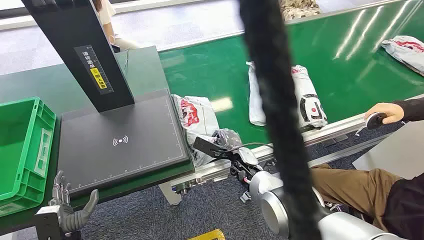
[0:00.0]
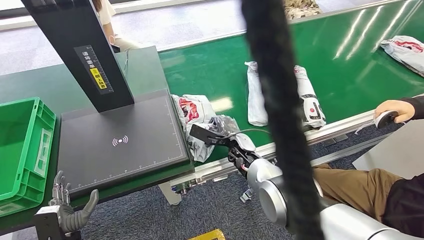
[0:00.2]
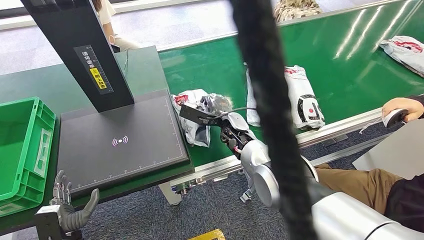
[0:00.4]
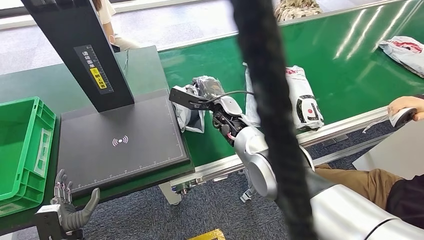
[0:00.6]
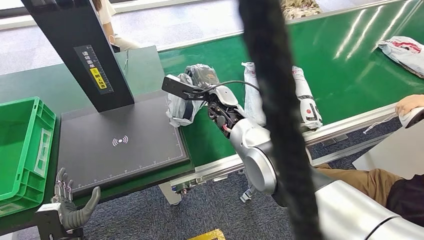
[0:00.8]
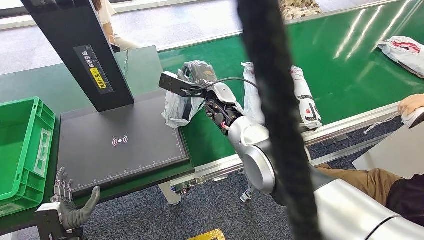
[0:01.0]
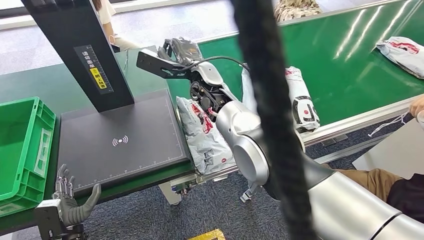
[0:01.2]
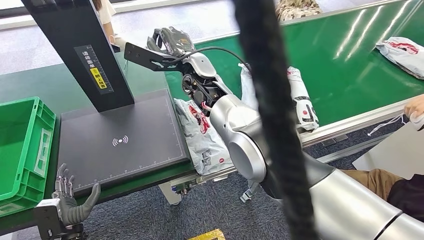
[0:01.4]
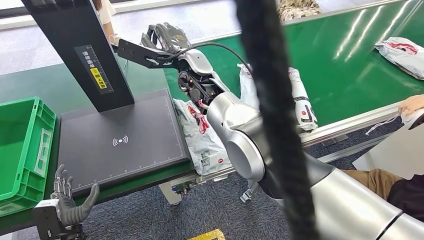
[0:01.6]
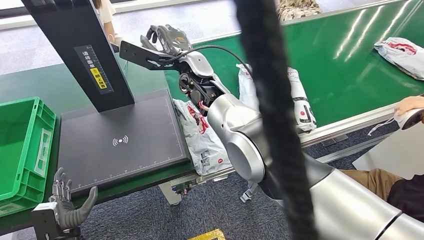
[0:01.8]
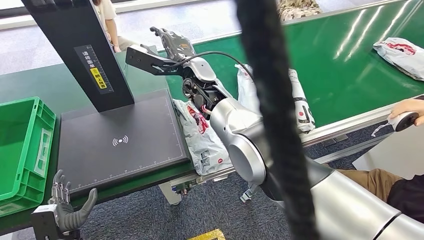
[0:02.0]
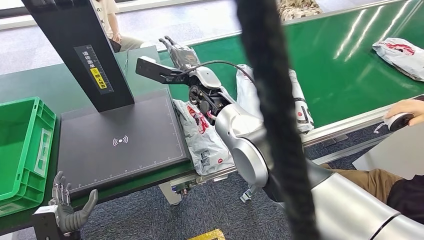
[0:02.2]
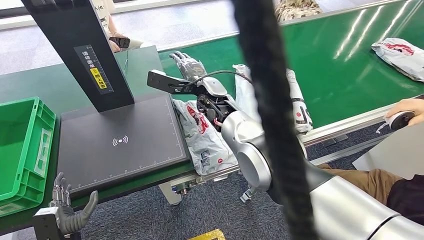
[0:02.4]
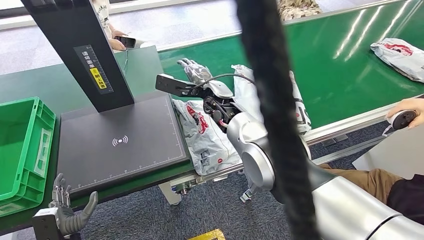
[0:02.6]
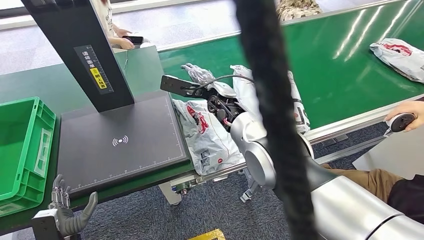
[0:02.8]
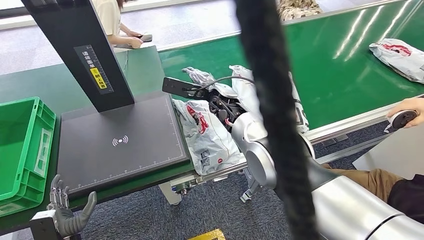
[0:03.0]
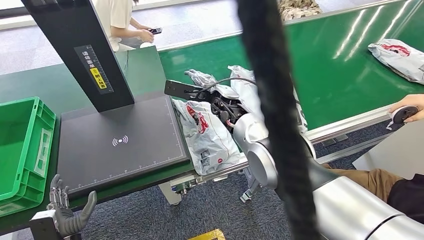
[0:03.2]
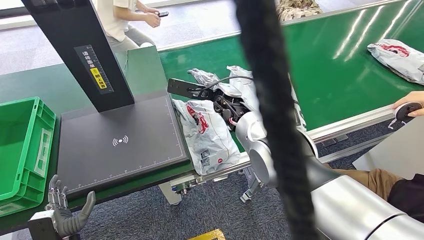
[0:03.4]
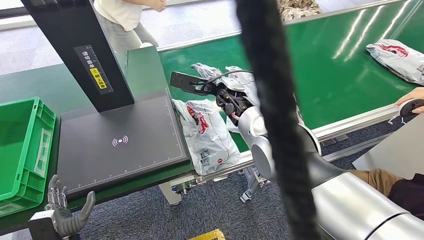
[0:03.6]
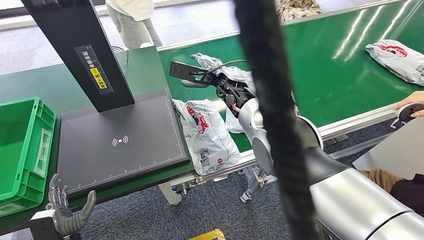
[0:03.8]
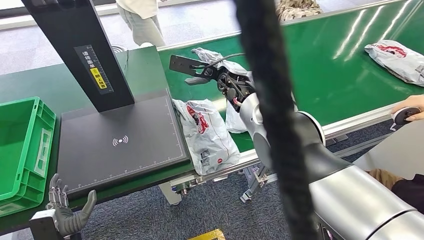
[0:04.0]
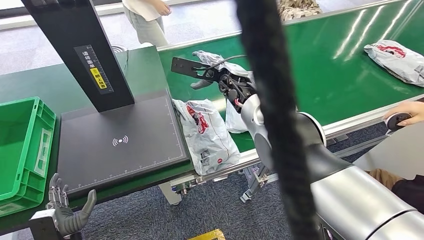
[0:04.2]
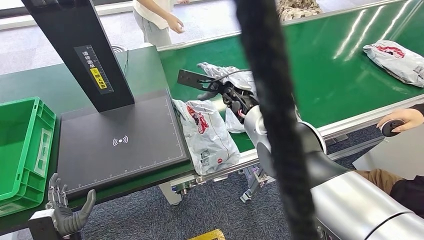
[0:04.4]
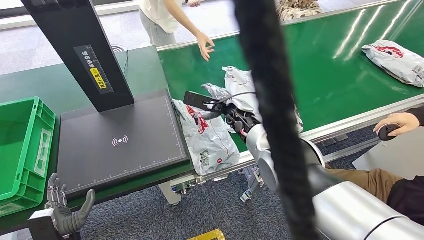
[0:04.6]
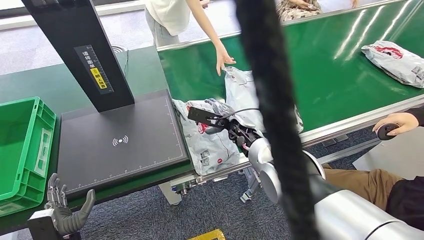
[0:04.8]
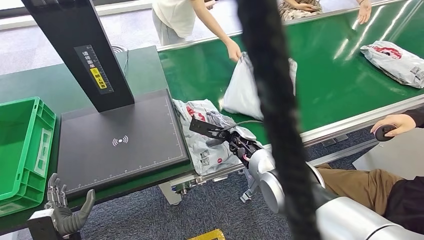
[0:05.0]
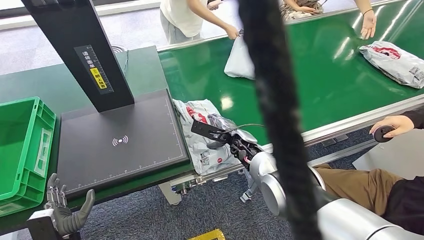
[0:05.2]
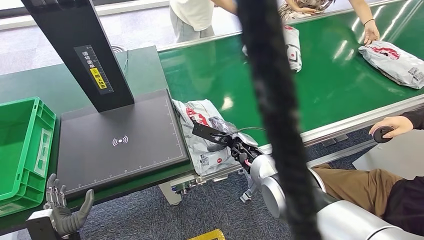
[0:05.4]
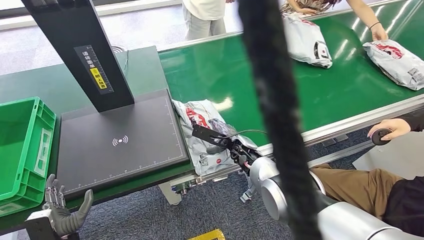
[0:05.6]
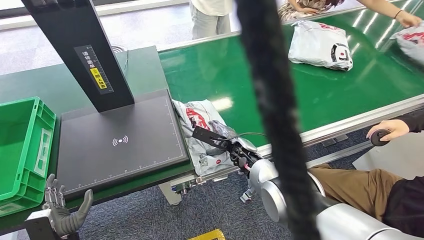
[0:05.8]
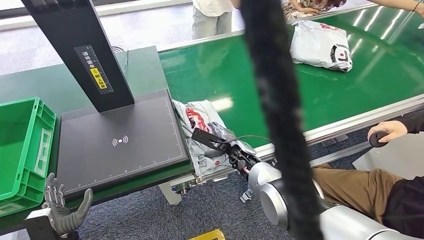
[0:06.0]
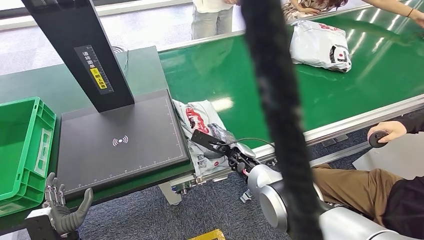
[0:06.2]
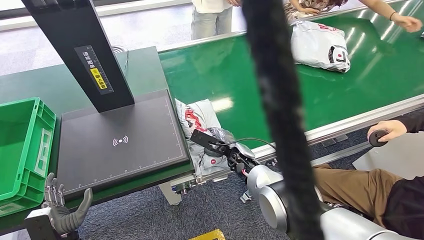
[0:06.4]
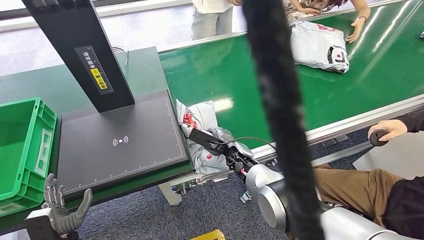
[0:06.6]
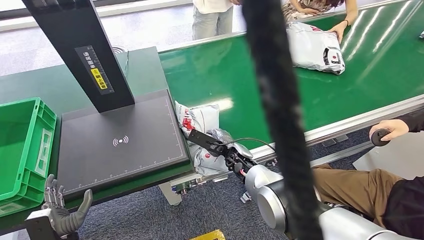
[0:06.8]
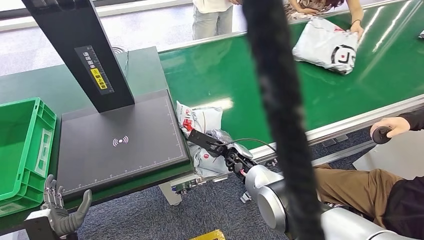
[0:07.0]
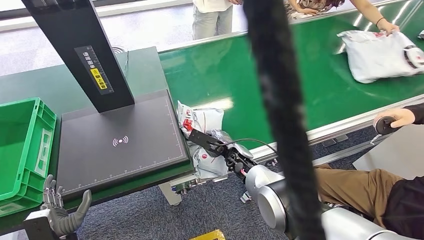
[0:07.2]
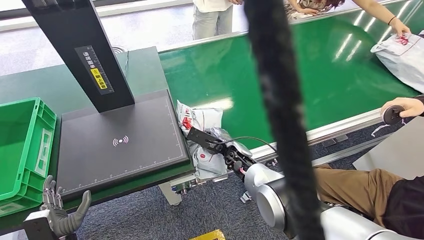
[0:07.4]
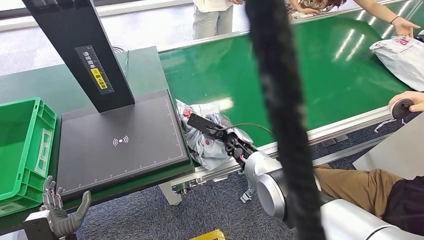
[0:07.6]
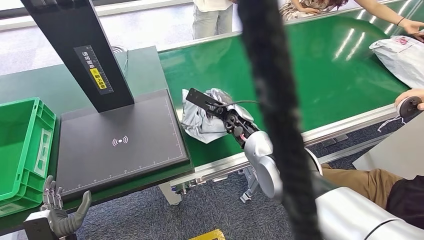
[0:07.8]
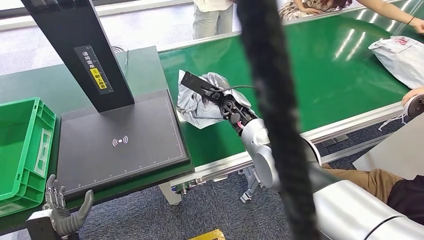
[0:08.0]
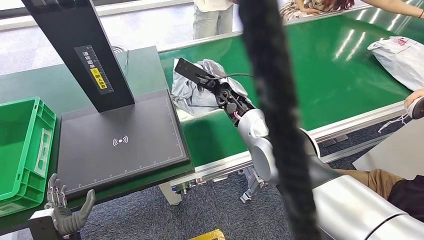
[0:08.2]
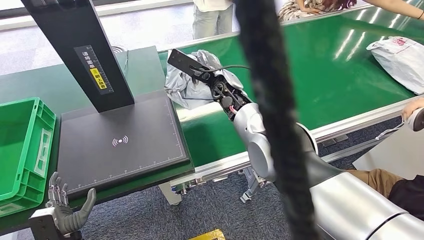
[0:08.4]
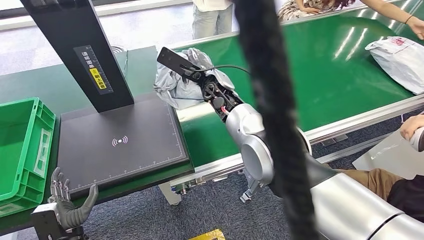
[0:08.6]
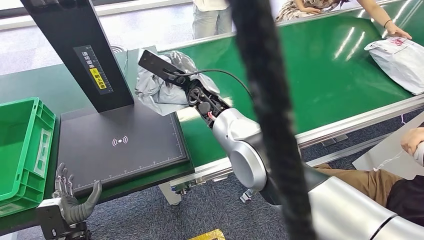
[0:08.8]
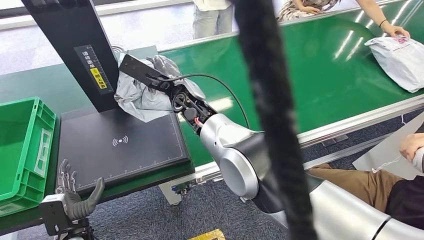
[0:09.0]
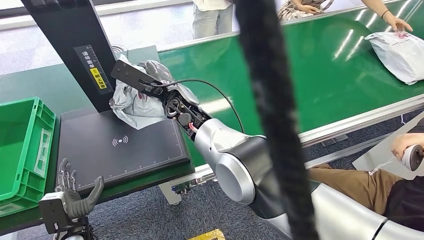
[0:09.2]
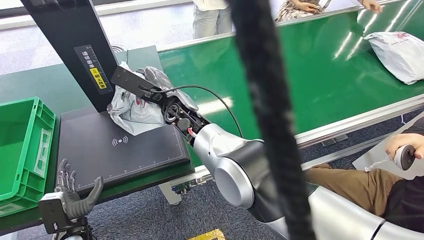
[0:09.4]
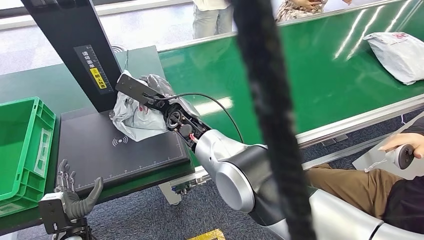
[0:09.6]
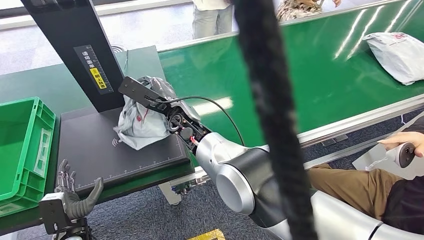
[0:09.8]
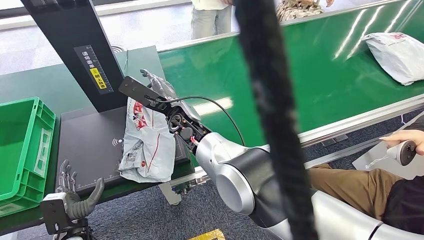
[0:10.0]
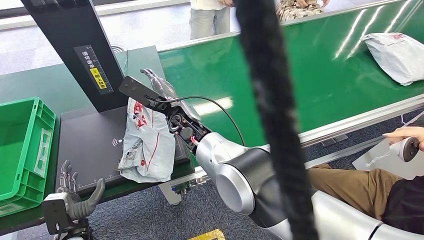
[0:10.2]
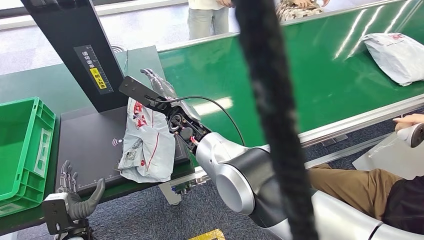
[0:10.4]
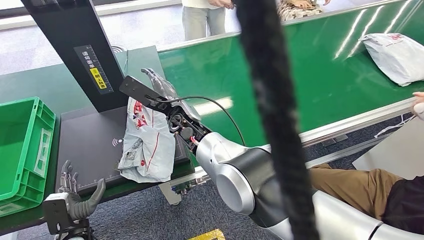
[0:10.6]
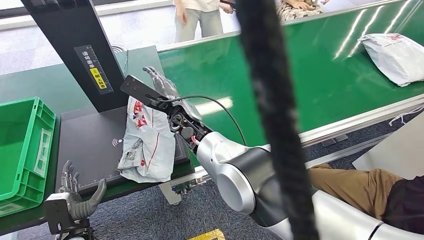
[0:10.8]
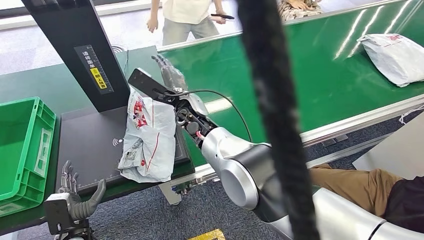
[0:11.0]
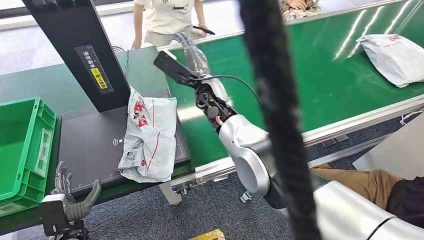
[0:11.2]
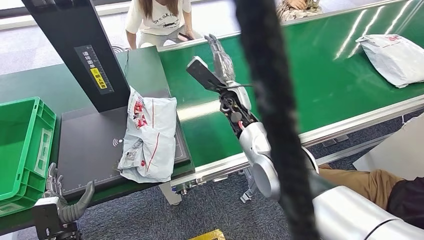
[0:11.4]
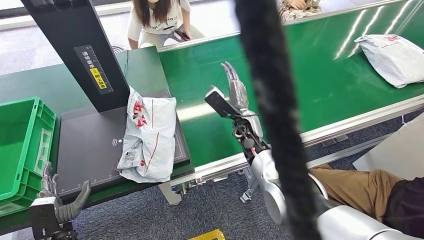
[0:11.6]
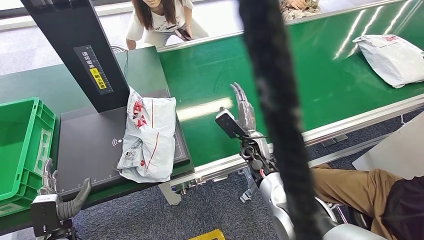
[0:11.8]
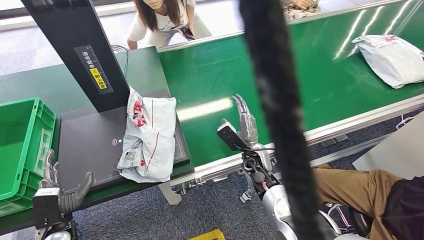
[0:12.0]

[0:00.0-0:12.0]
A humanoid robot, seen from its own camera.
Step, 0:00.0 to 0:08.8: Pick up the package from the conveyor belt.
0:01.6 to 0:03.0: The right hand heads downward and to the right, covering roughly 15 cm.
0:06.0 to 0:07.6: The hands stay close to where they were, moving slightly.

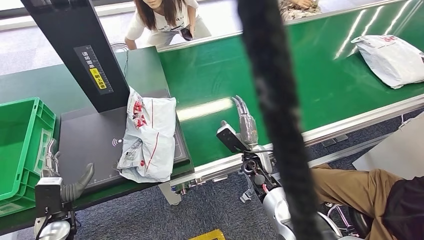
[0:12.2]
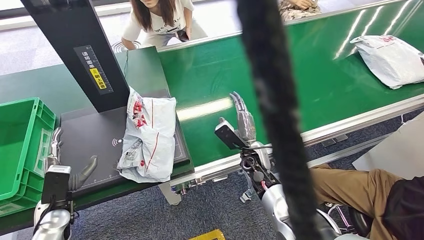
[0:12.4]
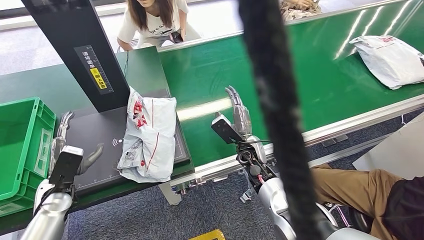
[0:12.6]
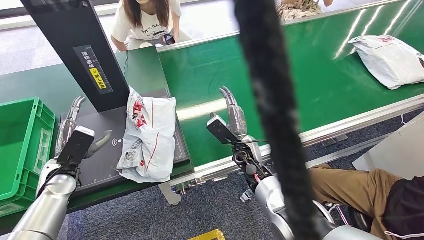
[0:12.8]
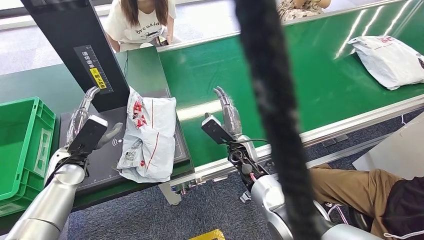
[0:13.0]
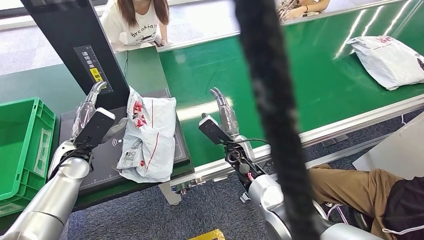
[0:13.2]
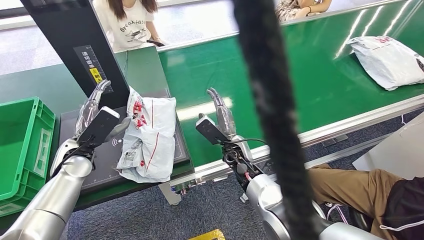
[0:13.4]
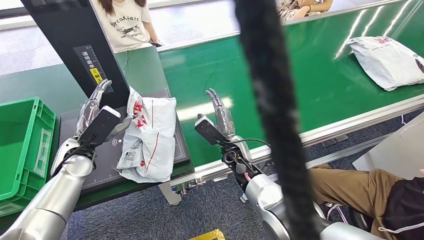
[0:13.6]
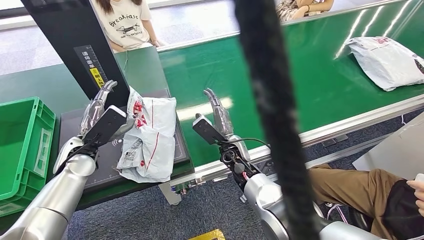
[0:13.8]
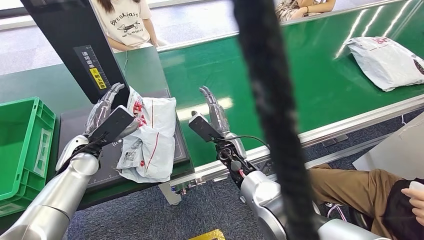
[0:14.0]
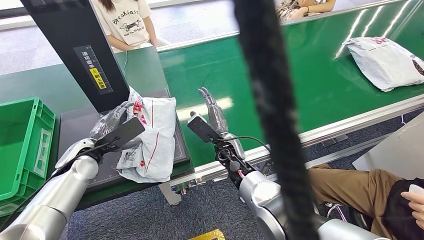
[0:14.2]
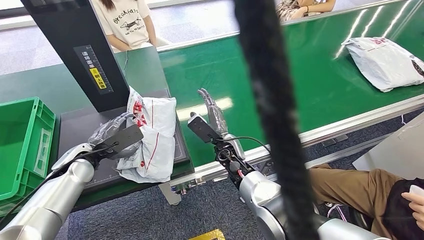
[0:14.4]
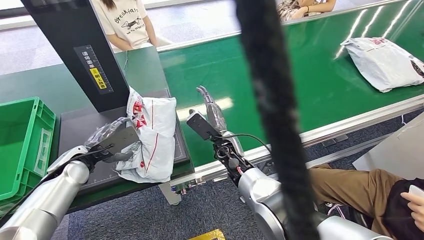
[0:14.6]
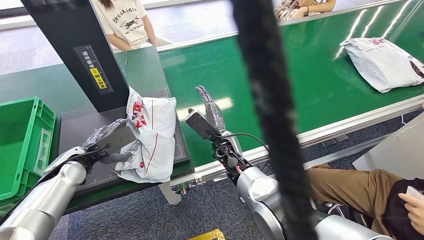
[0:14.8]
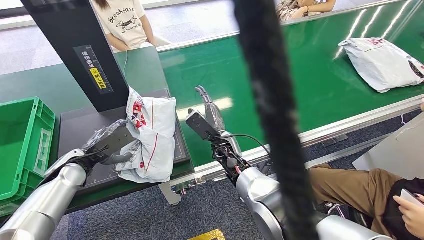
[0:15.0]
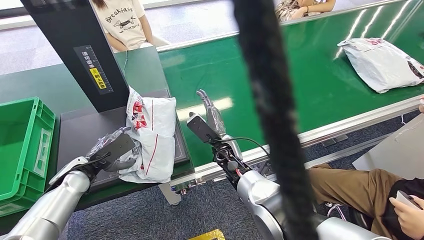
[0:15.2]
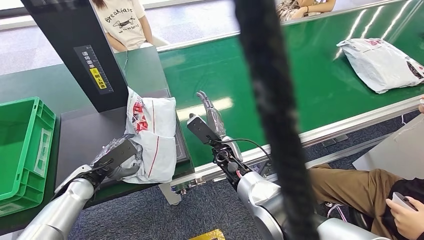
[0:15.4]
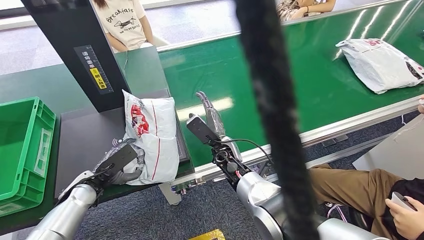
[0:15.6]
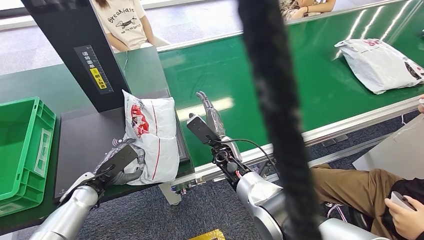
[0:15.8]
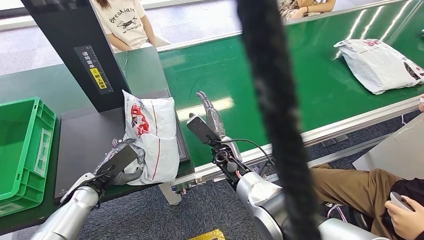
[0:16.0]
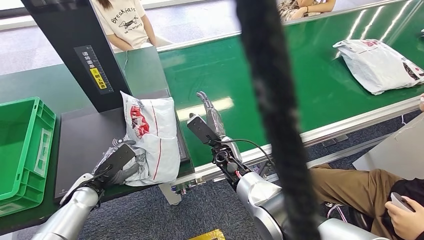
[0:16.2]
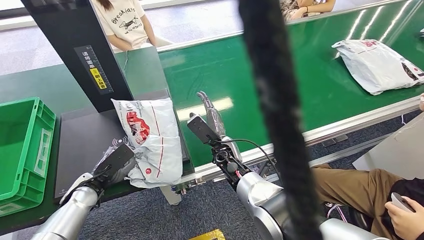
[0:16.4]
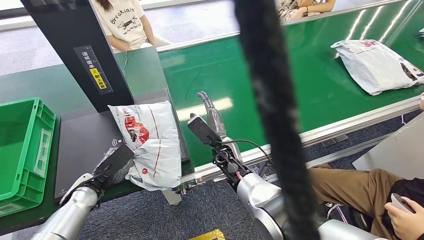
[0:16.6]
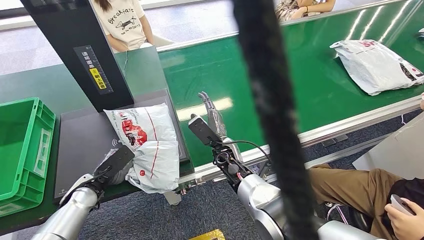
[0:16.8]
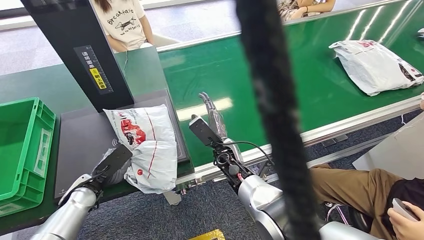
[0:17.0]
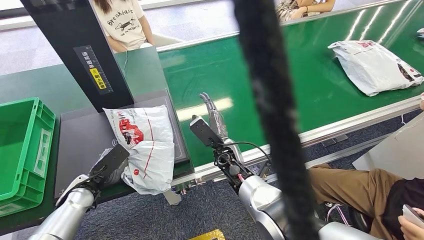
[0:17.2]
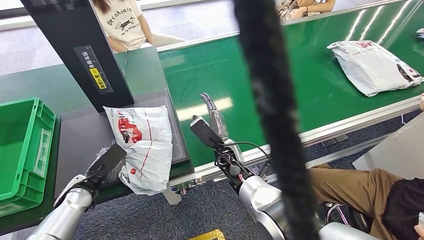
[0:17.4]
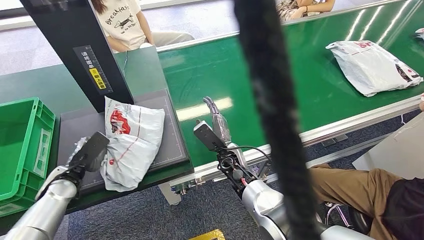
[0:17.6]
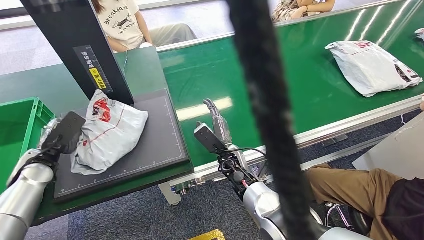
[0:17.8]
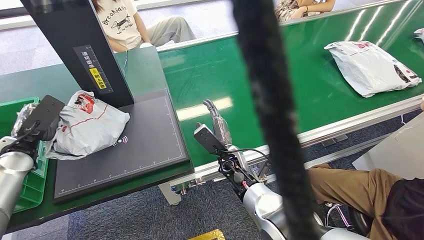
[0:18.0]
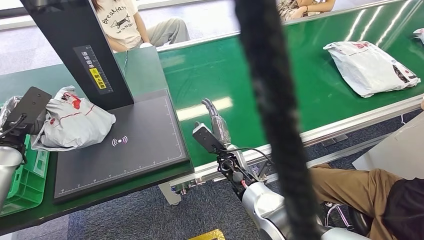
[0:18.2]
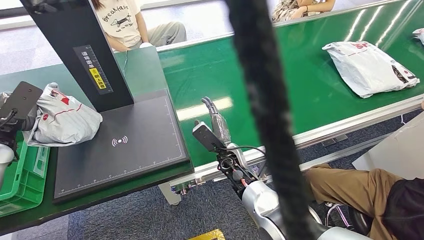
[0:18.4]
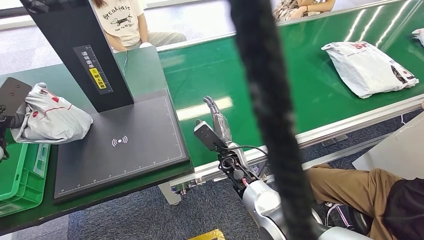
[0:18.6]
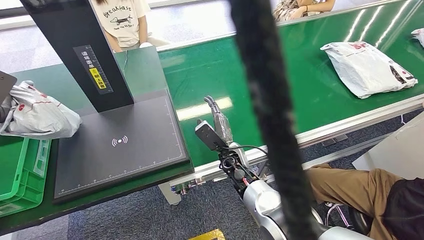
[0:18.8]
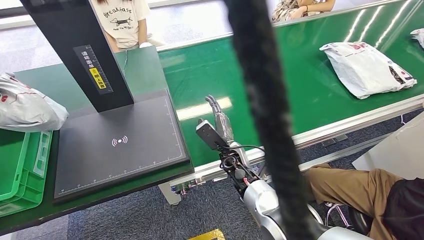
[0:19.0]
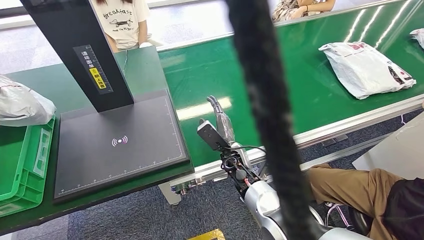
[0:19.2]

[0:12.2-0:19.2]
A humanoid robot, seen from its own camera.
Step, 0:13.4 to 0:17.8: Pick up the package from the inbound machine.
0:17.8 to 0:19.2: The left hand is displaced upward and to the left by some 20 cm.
